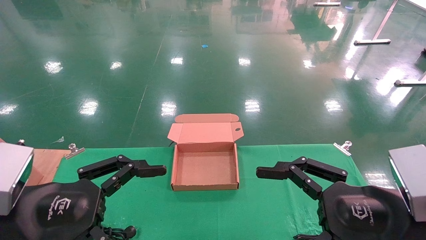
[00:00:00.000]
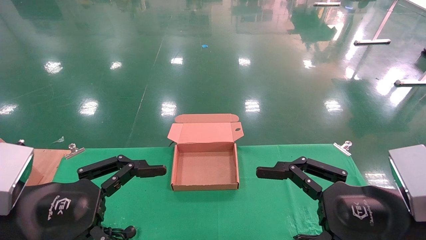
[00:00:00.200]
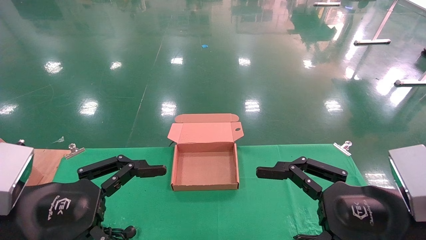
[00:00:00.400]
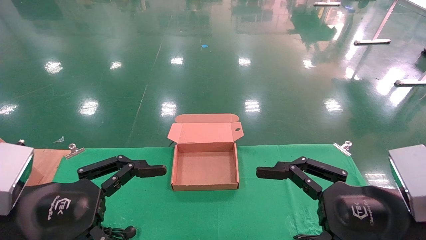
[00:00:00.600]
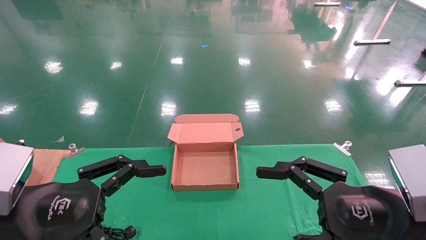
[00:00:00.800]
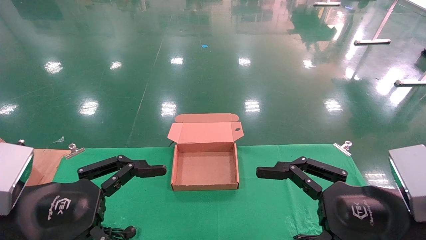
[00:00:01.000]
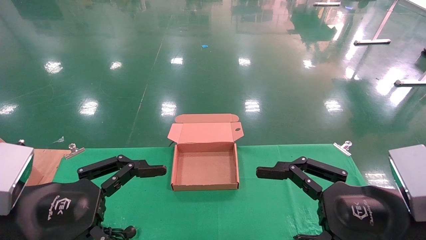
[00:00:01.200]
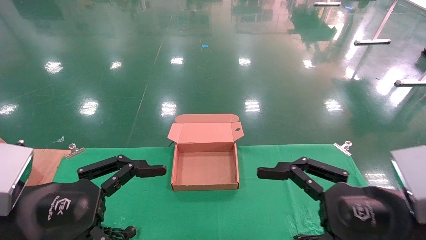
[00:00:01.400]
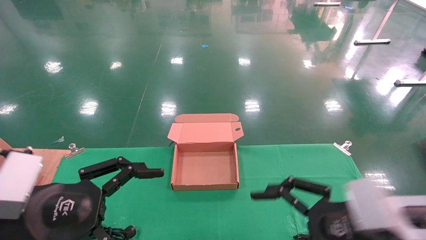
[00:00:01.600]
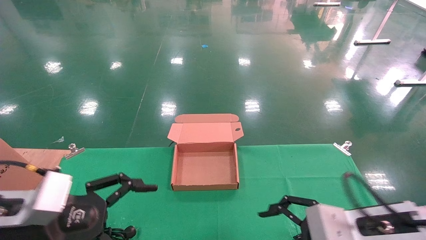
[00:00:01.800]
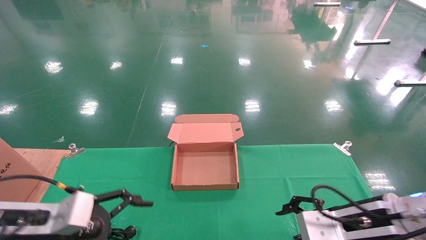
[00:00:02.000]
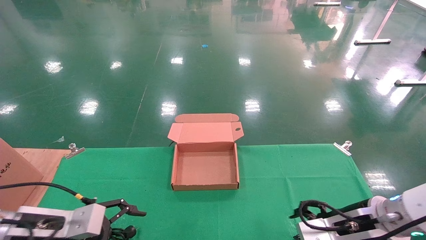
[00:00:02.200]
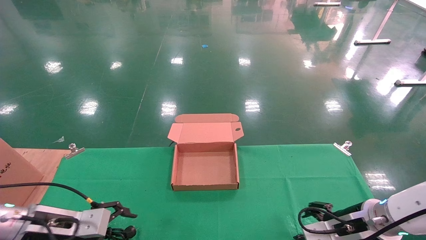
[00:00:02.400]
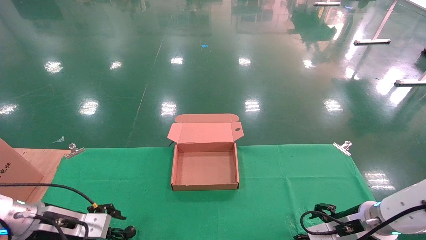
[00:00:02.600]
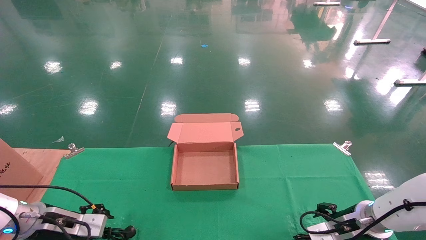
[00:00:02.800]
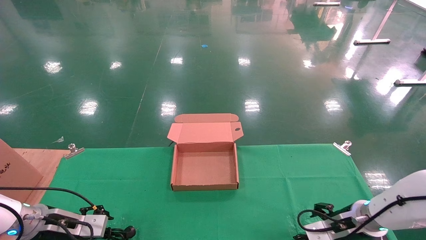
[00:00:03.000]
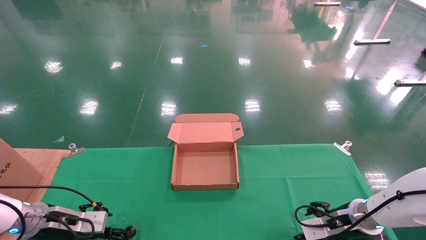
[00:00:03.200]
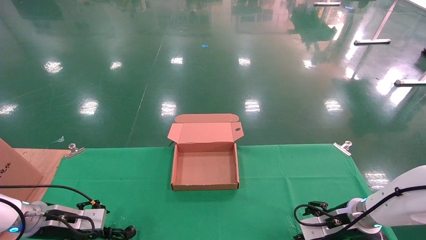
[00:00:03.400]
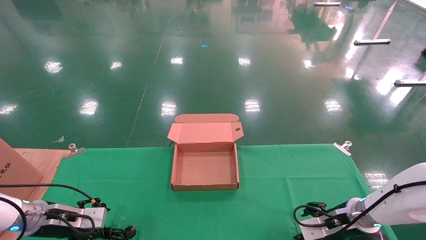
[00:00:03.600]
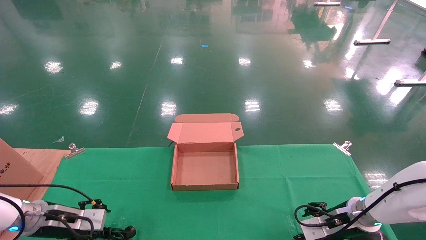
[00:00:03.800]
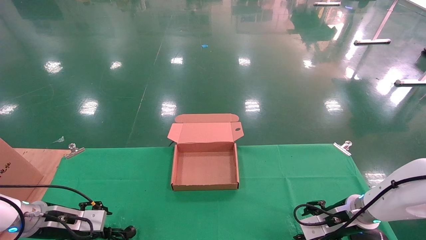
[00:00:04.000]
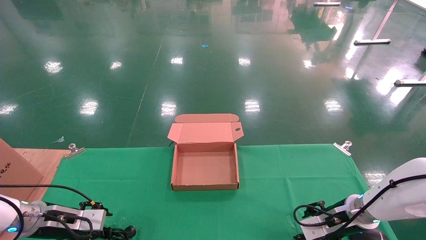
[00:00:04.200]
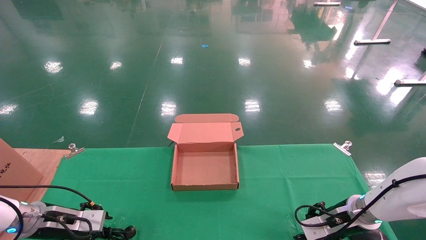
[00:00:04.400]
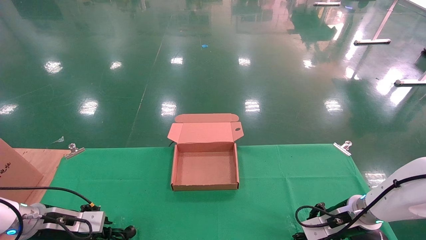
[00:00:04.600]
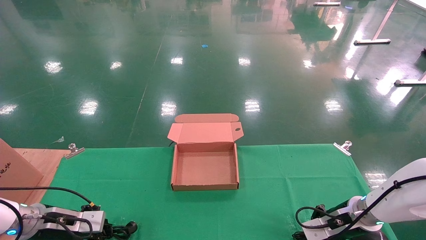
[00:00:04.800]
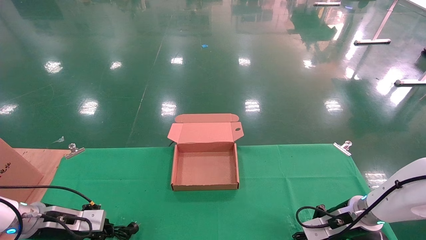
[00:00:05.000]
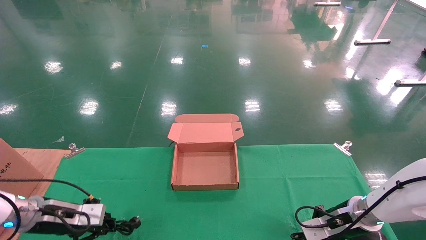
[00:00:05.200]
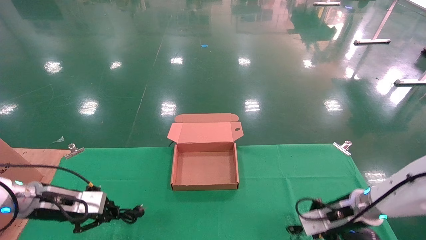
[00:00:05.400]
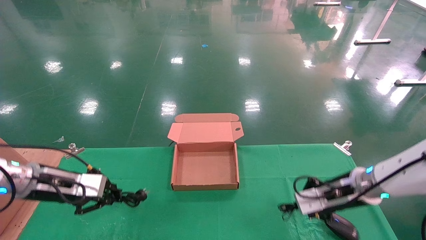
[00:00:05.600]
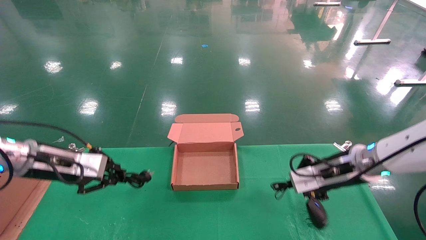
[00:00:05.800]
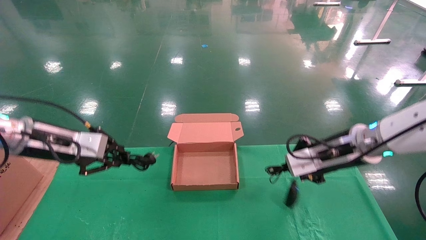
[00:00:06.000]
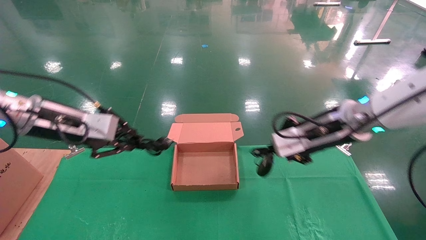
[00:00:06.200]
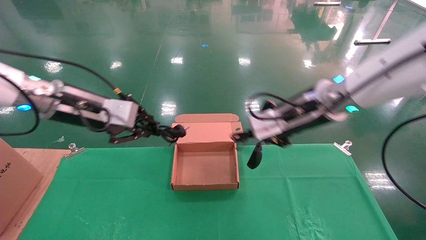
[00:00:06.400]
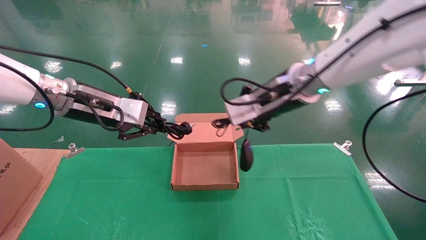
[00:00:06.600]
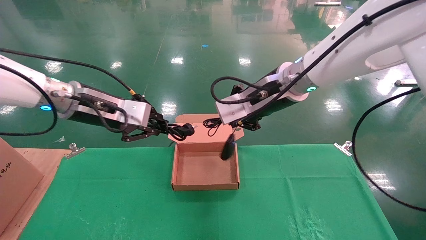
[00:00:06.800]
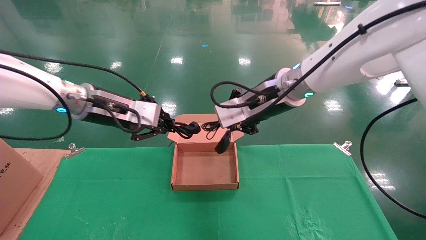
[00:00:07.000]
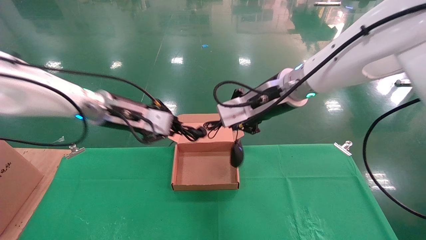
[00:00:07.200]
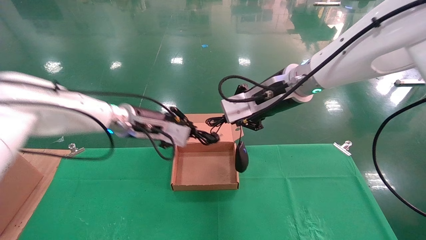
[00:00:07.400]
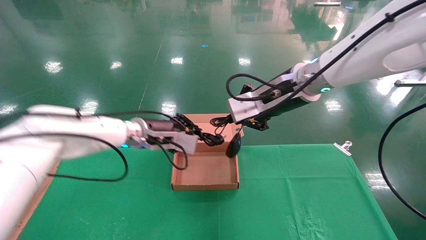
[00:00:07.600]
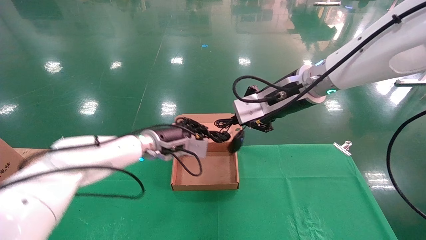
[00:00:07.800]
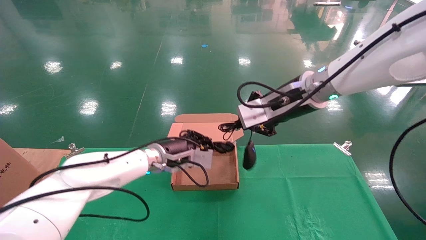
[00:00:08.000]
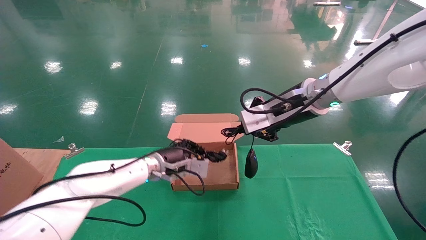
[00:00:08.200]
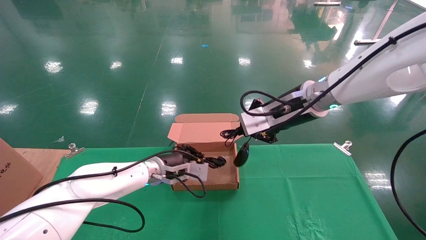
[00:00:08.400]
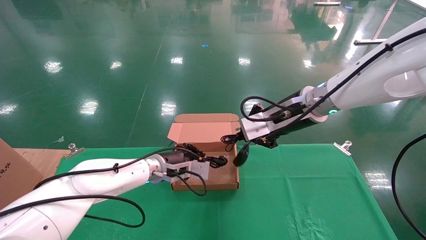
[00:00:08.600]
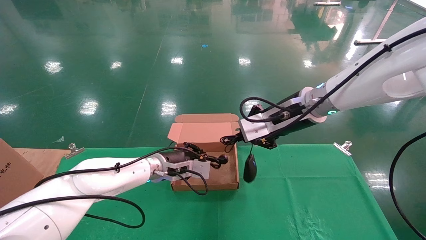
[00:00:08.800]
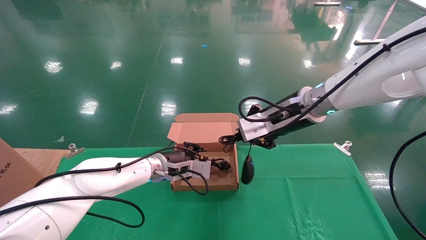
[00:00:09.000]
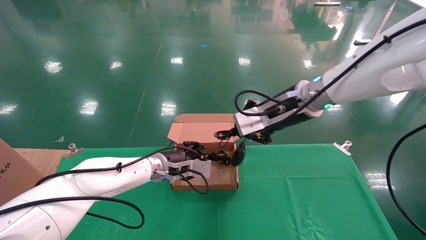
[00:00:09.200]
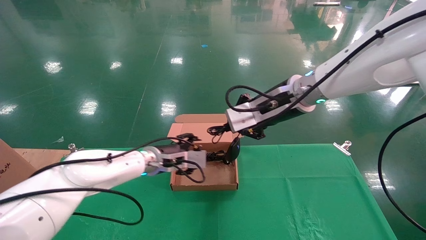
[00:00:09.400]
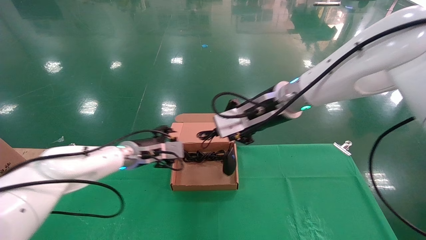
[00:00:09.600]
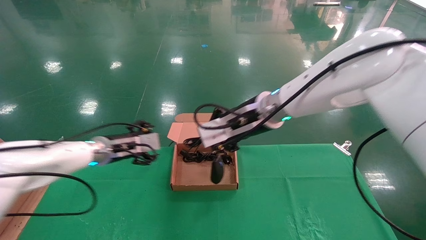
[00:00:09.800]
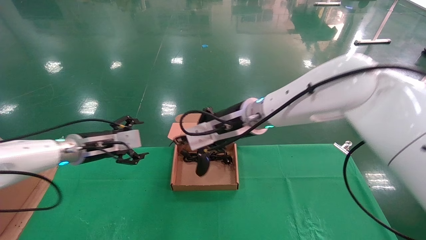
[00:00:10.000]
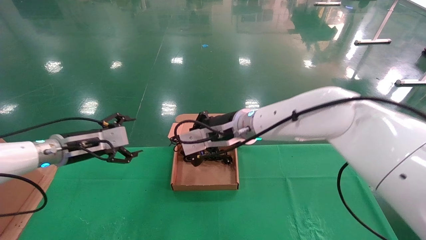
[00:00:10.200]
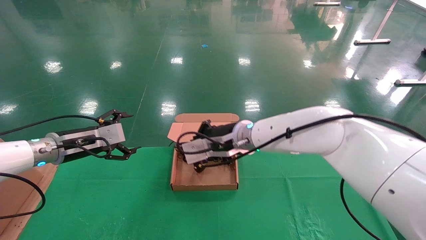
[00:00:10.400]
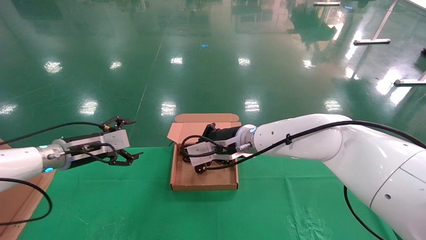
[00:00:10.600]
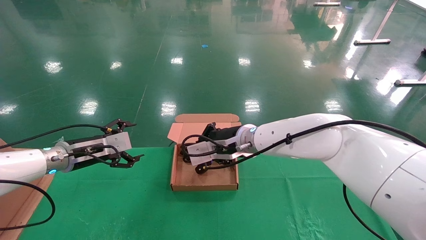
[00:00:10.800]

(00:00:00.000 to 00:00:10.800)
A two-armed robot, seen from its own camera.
Step, 00:00:02.000 - 00:00:05.400: Grab and lift both the mouse and power cord from the accessory packaging area at the same time.
00:00:01.600 - 00:00:03.000: The left gripper goes approximately 25 cm forward, downward and to the left. The right gripper heads forward and downward, covering approximately 20 cm.
00:00:03.000 - 00:00:04.600: The left gripper closes up, while the right gripper closes.
00:00:04.600 - 00:00:06.200: The left gripper heads upward, covering some 25 cm, and closes; the right gripper moves upward and to the left, about 25 cm, and closes its fingers.
00:00:06.200 - 00:00:07.800: The right gripper heads to the left and upward, covering some 10 cm. Meanwhile the left gripper travels to the right, forward and downward by approximately 20 cm.
00:00:07.800 - 00:00:09.200: The left gripper moves downward, roughly 5 cm.
00:00:09.200 - 00:00:10.800: The right gripper shifts about 15 cm downward and to the left. The left gripper travels to the left by roughly 20 cm, and opens.

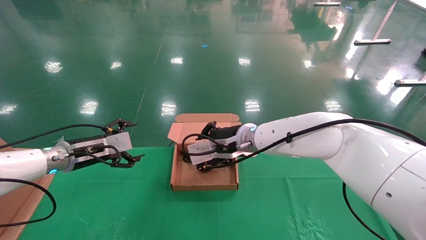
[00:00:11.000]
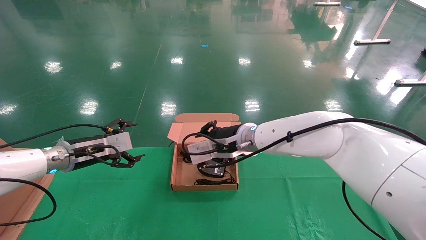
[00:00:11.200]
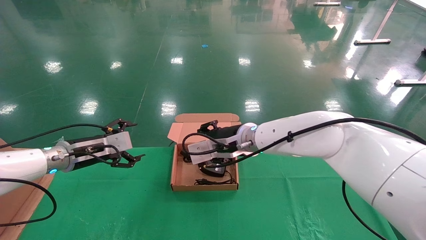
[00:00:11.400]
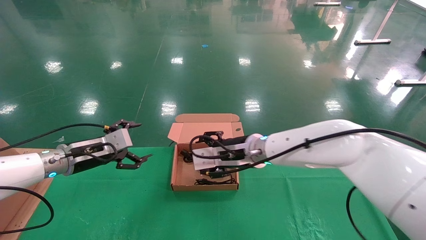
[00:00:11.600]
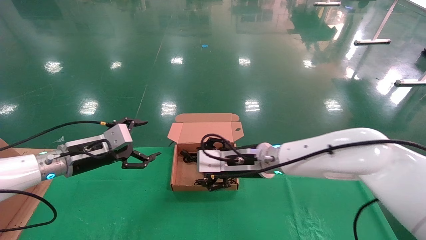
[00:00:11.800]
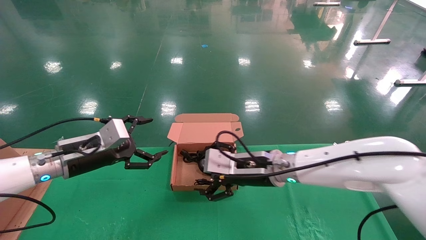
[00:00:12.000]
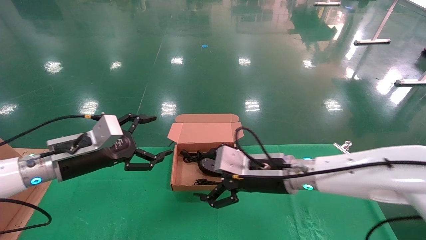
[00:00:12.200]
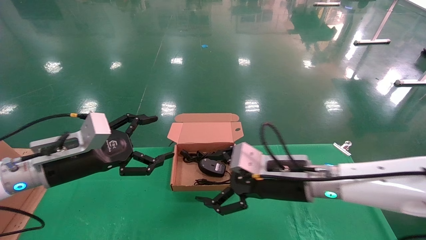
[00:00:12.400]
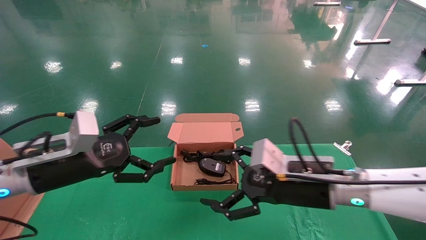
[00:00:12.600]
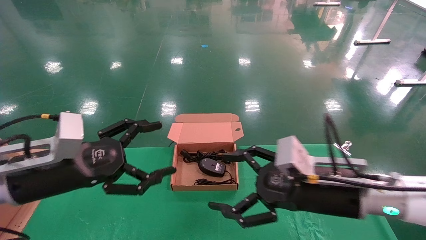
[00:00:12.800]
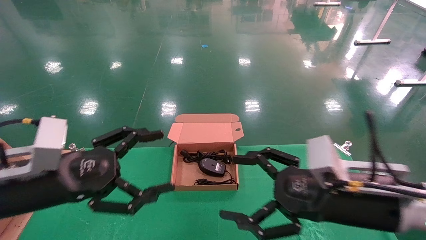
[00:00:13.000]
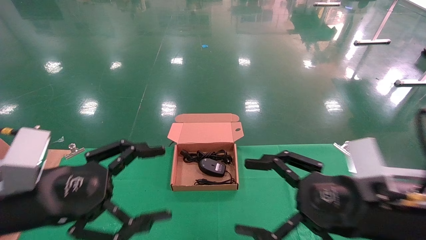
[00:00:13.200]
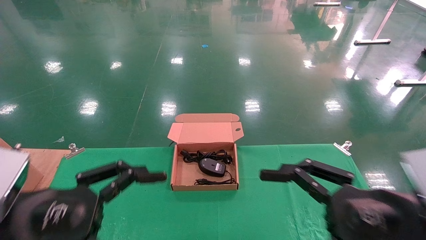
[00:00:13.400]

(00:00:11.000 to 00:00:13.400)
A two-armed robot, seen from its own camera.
00:00:11.000 - 00:00:12.200: The right gripper is displaced to the right and backward by some 10 cm, and opens its fingers, while the left gripper goes roughly 10 cm backward.
00:00:12.200 - 00:00:13.400: The right gripper moves backward and to the right, approximately 20 cm, while the left gripper heads backward, covering roughly 20 cm.
